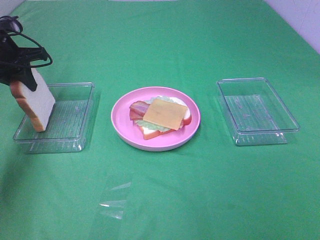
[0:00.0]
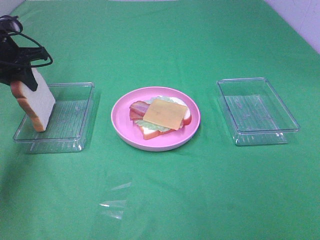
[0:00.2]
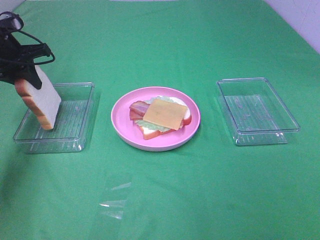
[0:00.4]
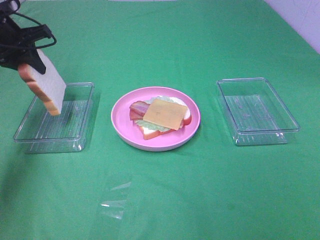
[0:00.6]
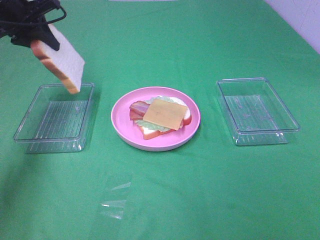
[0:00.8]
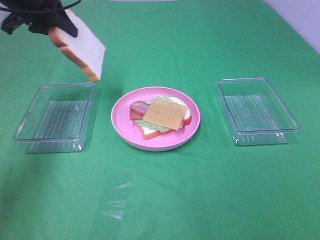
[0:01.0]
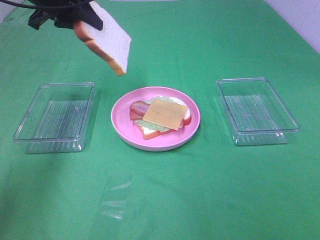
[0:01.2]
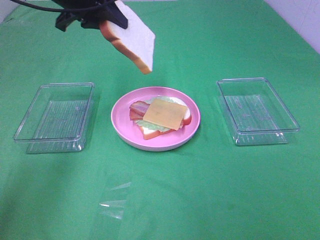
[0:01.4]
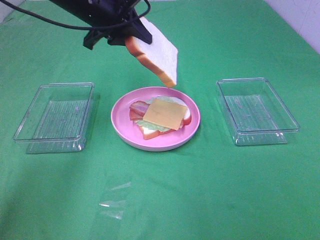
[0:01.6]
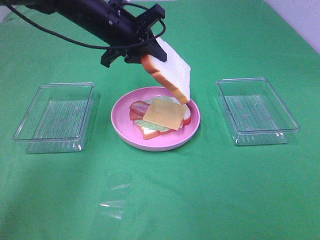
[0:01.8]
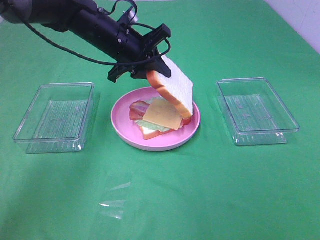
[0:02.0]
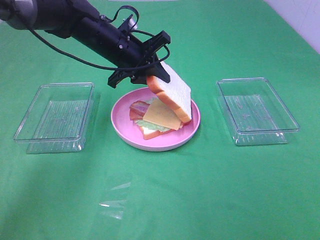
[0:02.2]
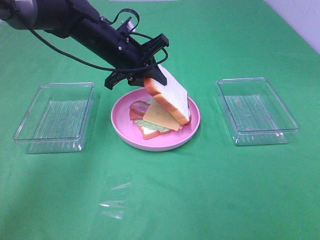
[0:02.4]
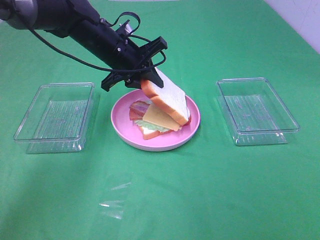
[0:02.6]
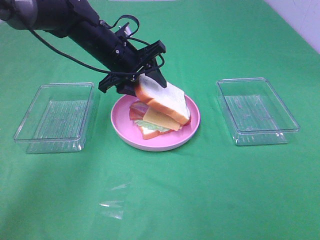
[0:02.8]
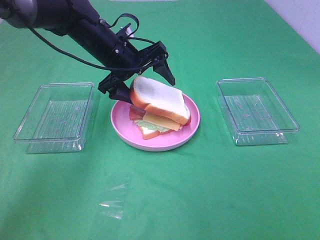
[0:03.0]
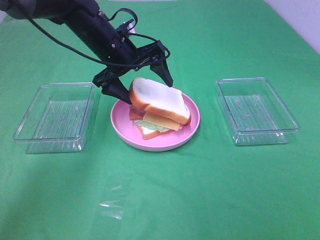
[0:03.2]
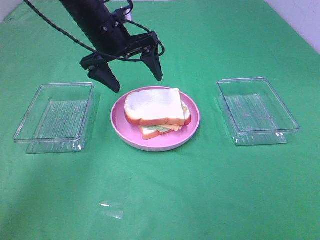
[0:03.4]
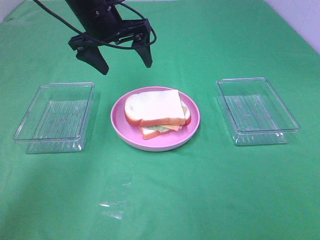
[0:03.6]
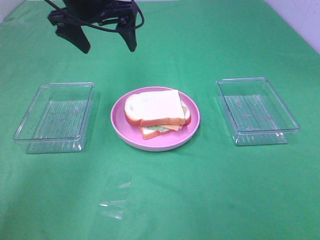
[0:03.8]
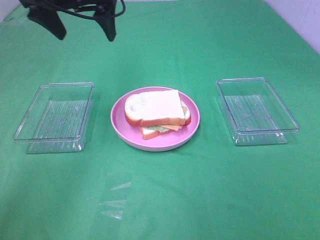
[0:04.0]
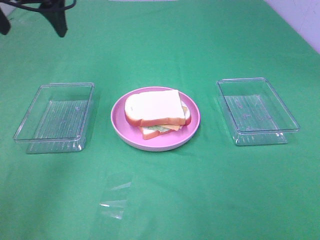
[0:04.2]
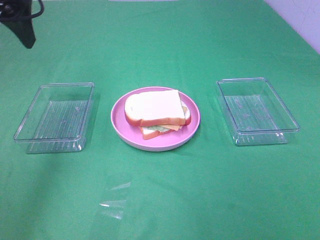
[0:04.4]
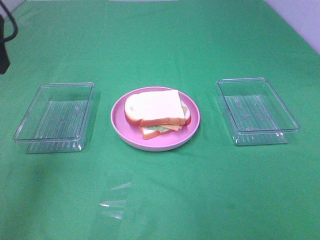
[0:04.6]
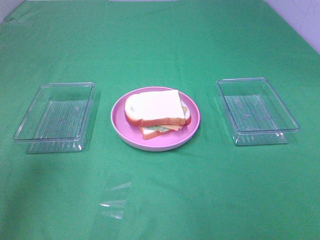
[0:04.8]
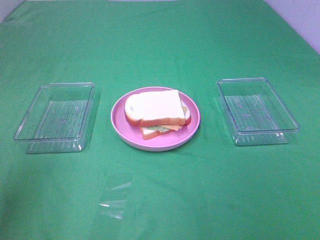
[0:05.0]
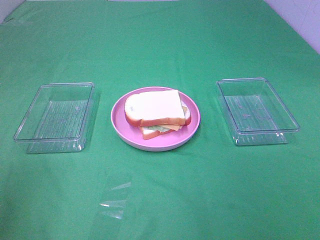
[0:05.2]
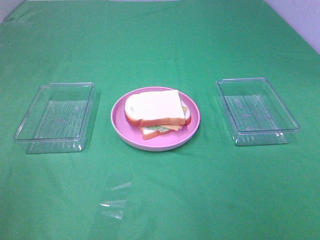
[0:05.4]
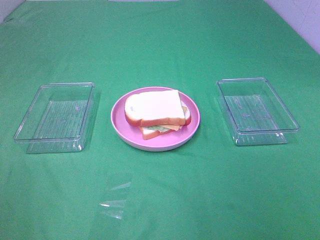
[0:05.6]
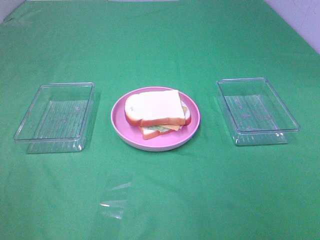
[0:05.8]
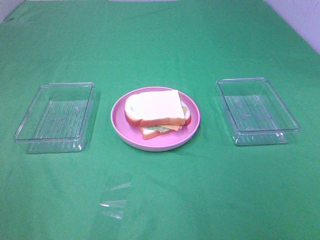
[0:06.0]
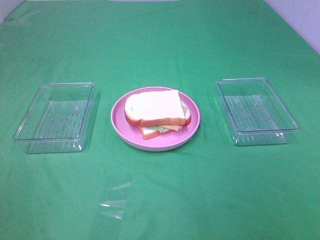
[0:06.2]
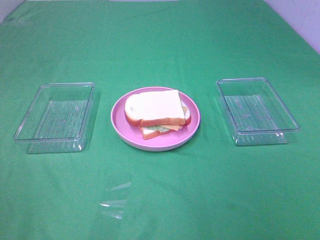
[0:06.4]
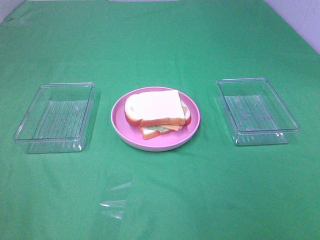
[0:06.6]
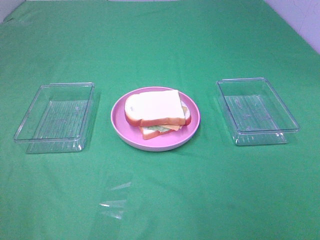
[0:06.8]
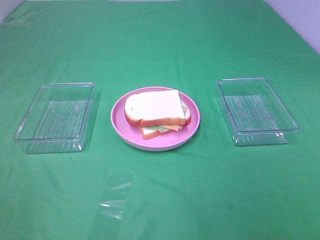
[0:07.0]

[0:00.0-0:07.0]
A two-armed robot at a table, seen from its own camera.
Task of the whole recording: Make sandwiches.
Step, 0:00.4 to 0:03.4: Left hand:place the bread slice on the plate.
0:00.0 to 0:01.4: The left gripper goes roughly 20 cm to the right and upward.
0:01.4 to 0:02.8: The left gripper is displaced downward and to the right by approximately 15 cm, and opens.
0:02.8 to 0:04.2: The left gripper moves upward, to the left and backward, approximately 25 cm, and opens.
0:04.2 to 0:05.6: The left gripper travels backward by some 35 cm.

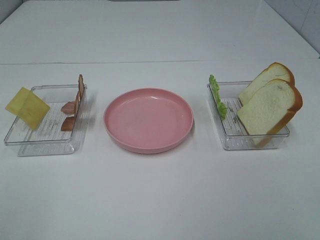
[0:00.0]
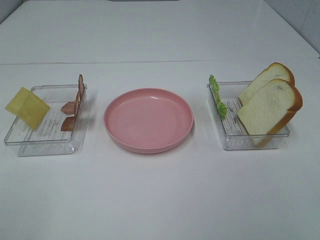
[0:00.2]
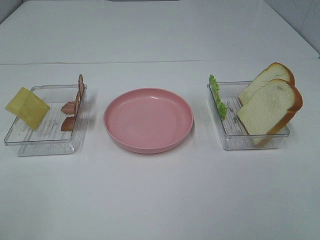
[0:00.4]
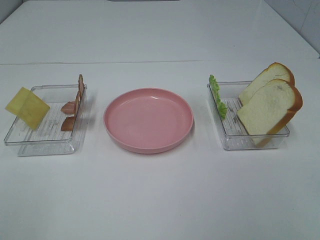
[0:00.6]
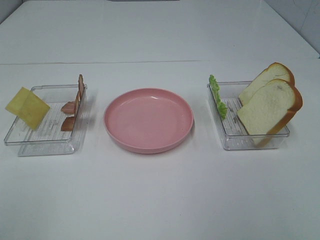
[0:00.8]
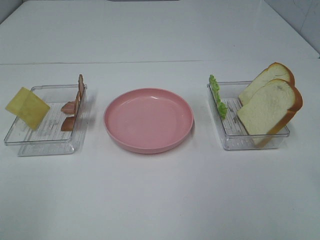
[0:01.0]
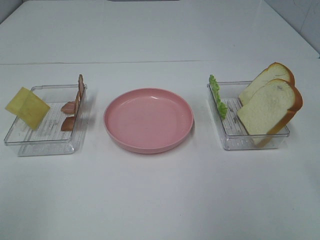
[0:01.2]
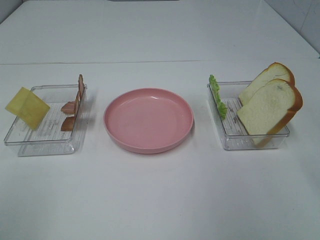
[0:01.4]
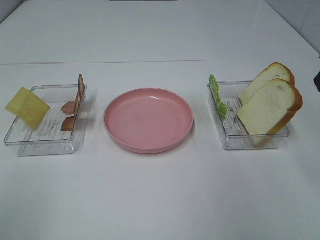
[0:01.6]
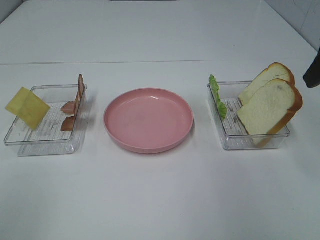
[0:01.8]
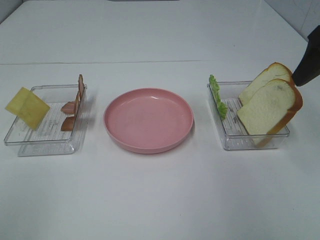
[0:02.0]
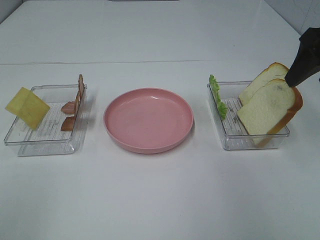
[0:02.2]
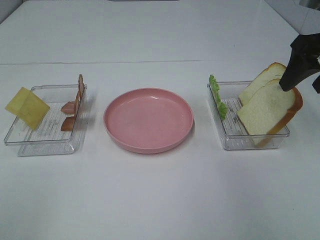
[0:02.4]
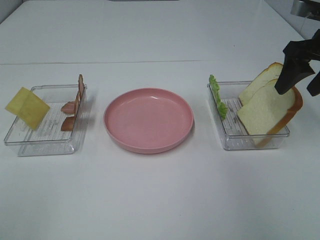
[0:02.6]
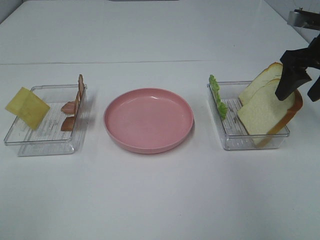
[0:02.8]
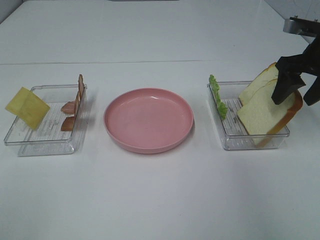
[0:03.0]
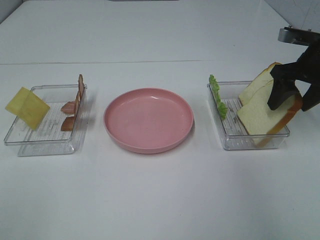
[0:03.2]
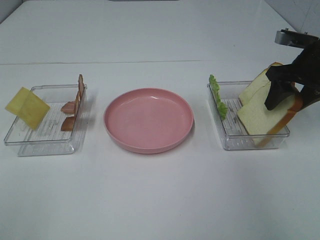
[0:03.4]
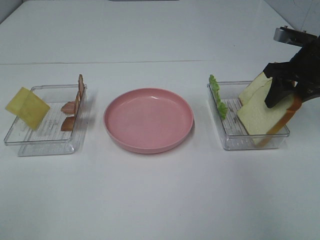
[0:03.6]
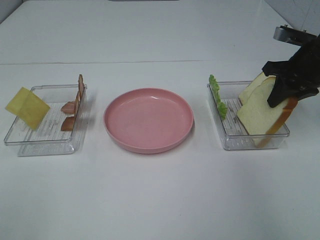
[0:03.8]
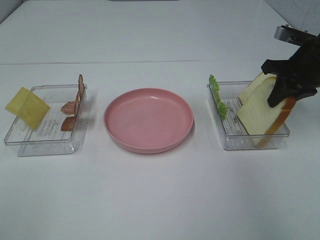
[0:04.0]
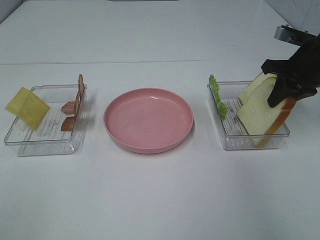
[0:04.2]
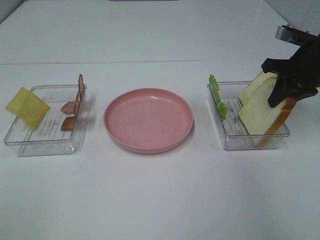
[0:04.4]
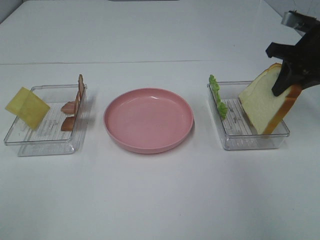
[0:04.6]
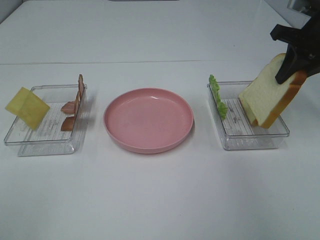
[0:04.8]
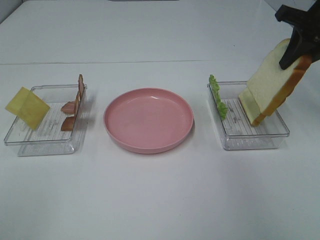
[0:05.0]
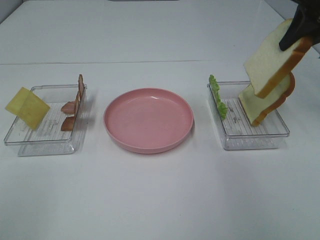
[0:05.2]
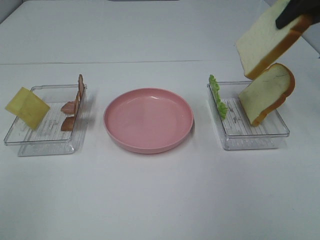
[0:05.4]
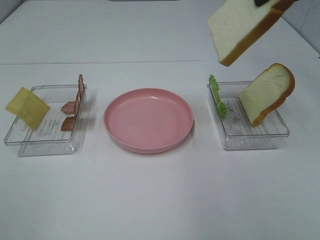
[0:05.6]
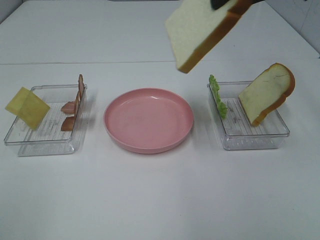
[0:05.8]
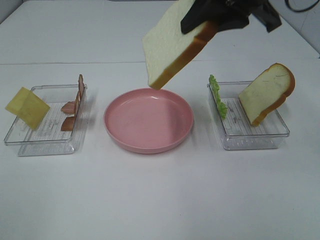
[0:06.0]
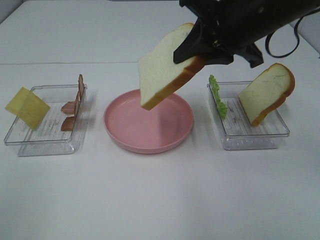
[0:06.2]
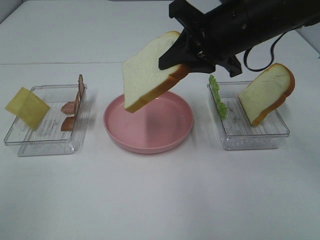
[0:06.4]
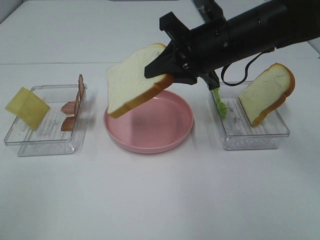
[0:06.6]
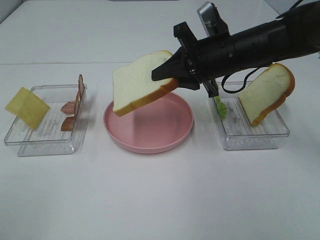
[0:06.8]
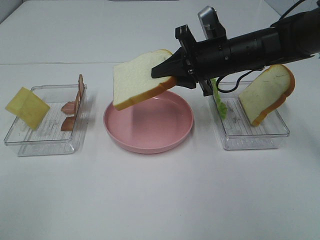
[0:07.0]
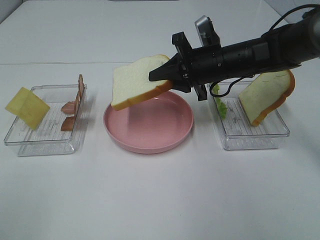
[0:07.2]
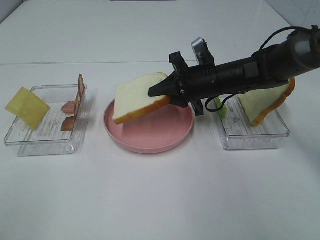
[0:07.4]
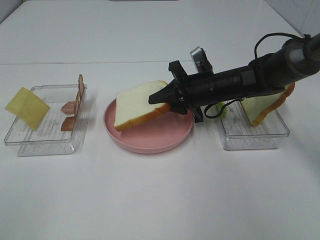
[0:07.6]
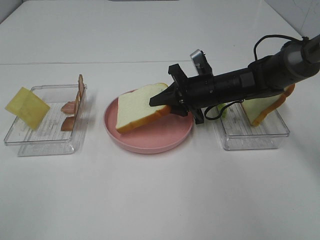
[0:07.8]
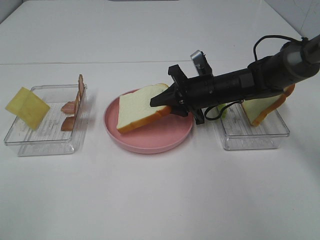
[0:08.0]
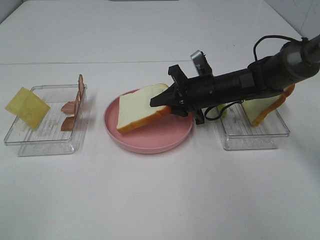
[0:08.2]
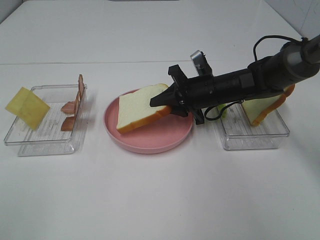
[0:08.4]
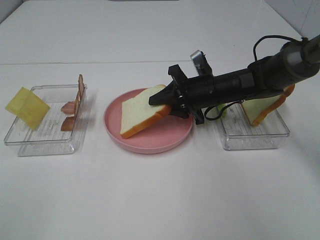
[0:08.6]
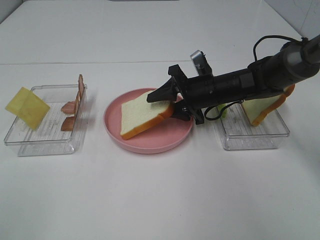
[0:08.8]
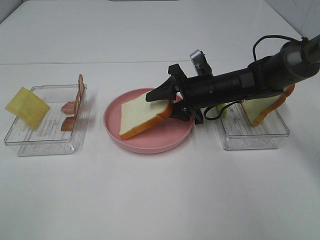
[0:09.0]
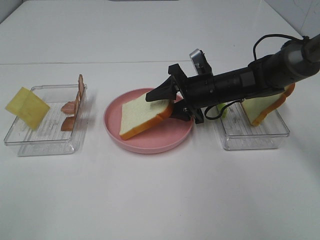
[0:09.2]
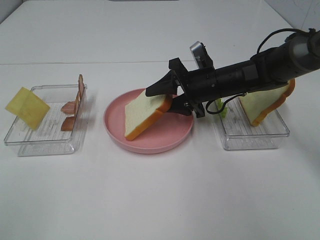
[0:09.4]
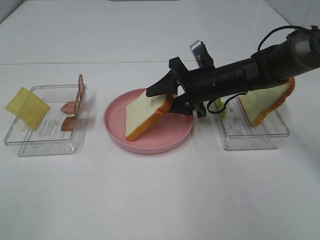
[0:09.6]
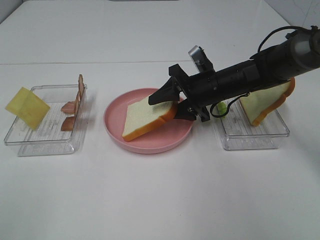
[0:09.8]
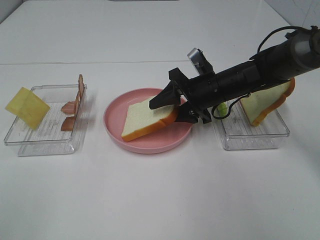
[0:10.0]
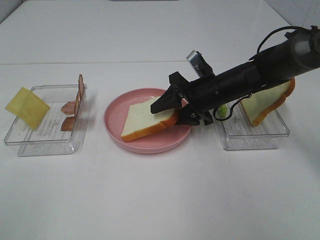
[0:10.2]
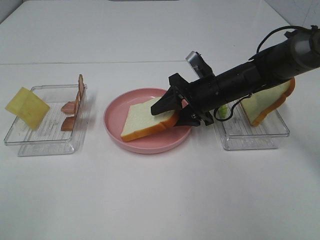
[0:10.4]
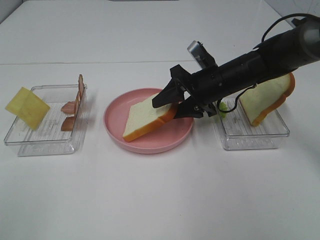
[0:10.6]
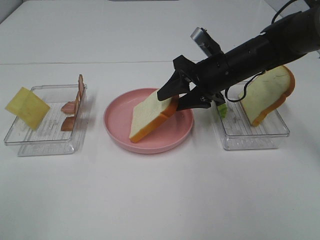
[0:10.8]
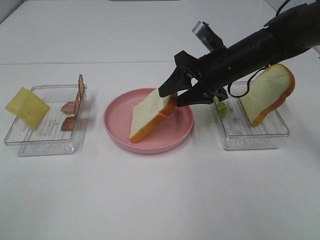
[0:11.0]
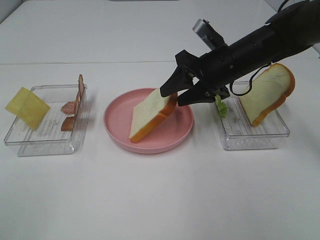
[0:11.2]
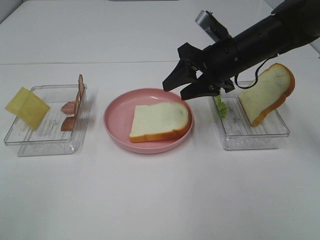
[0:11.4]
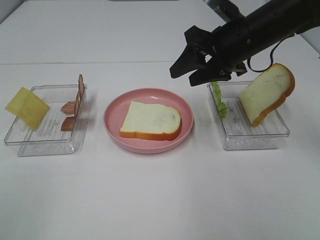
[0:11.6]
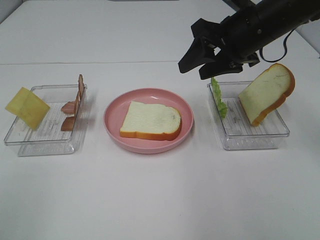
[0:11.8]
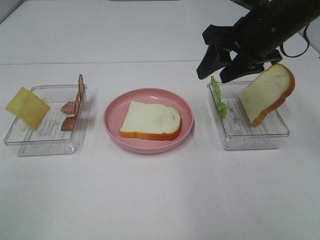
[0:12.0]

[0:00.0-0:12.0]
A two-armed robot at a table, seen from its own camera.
Task of the whole recording: Make sandwiches.
Step, 0:00.0 to 0:04.2: Right hand:grab the bread slice.
Step, 0:04.4 to 0:11.4: Right hand:place the bread slice on the plate.
0:01.6 to 0:03.0: The right gripper shifts approximately 15 cm forward and downward.
0:03.0 to 0:04.4: The right gripper closes its fingers.
0:04.4 to 0:06.0: The right gripper heads to the left, upward and backward, covering about 25 cm.
0:06.0 to 0:07.6: The right gripper shifts about 25 cm downward.
0:07.6 to 0:09.0: The right gripper opens.
0:09.0 to 0:10.4: There are only small adjustments of the grippers.
0:10.4 to 0:12.0: The right gripper is displaced upward by roughly 15 cm.

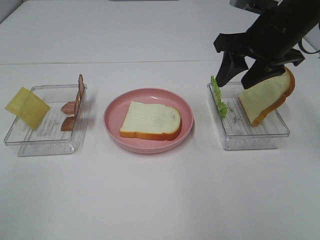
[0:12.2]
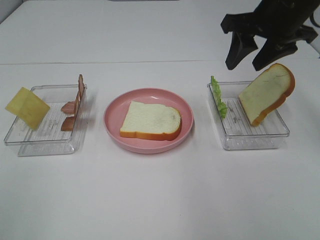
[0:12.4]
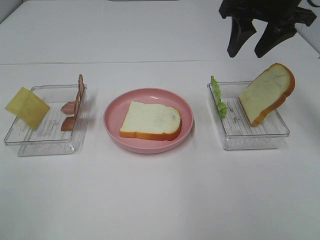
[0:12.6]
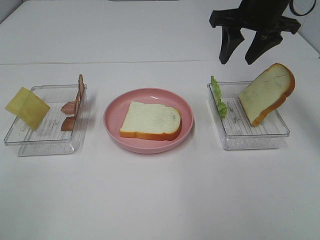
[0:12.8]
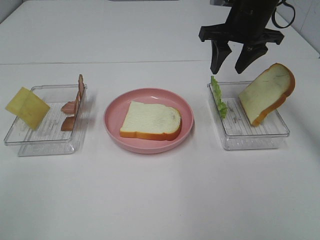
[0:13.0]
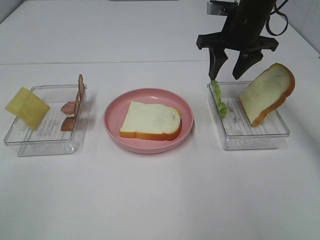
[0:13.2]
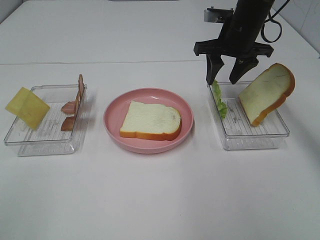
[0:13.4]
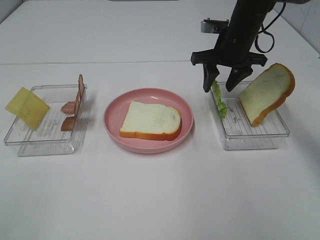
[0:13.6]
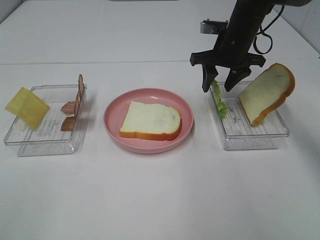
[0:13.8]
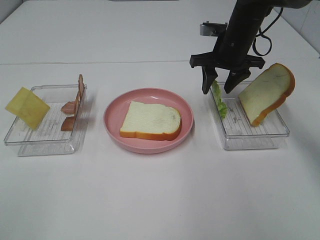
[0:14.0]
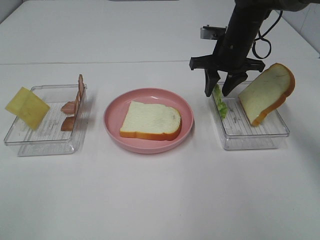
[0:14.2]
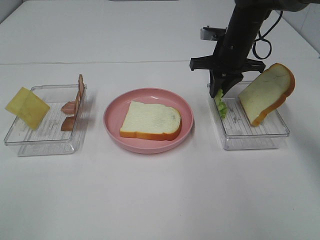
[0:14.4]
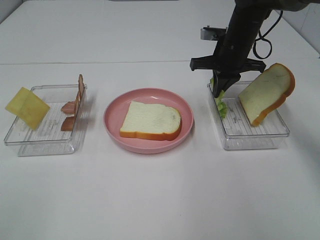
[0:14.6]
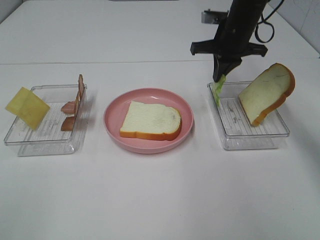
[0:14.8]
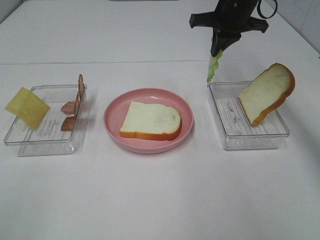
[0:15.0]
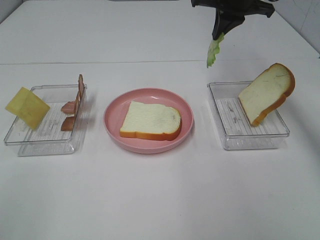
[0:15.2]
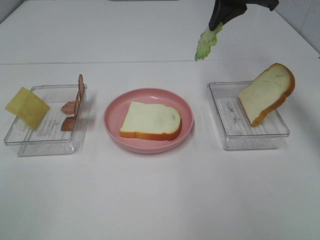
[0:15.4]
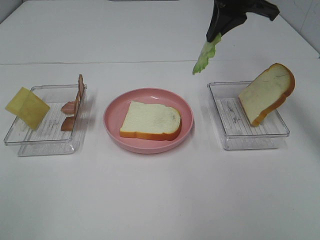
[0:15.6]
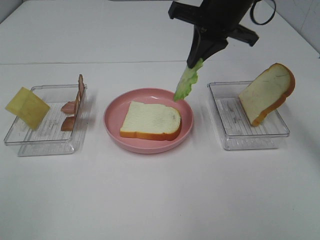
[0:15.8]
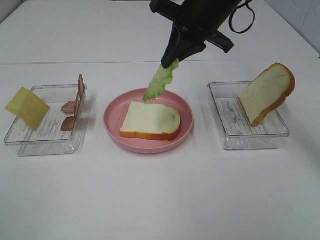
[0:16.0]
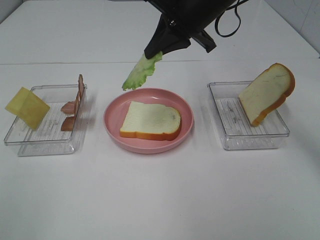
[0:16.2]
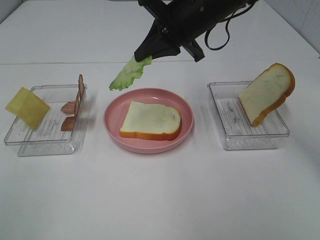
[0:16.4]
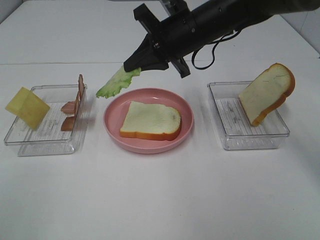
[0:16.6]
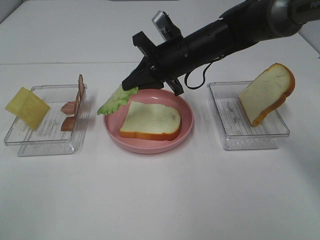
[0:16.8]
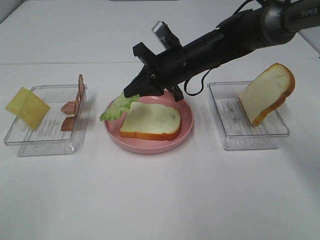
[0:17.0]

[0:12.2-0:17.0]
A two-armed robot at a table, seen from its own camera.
Task of the whole recording: Make sandwiches.
Step, 0:12.2 to 0:14.6: Right hand:grab the lettuce slice.
0:12.2 to 0:13.8: The right gripper heads forward and downward, covering about 15 cm.
0:13.8 to 0:15.4: The right gripper shifts approximately 15 cm upward, and closes up.
0:15.4 to 0:17.0: The right gripper moves downward and to the left, approximately 20 cm.
